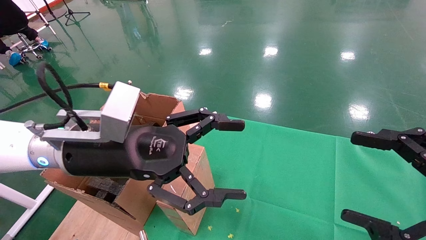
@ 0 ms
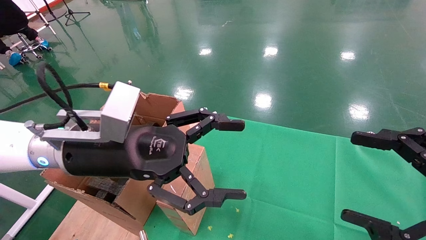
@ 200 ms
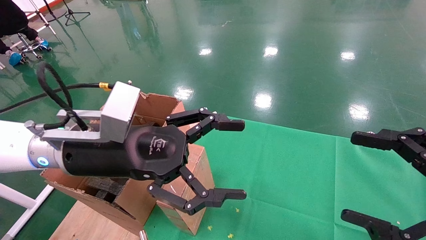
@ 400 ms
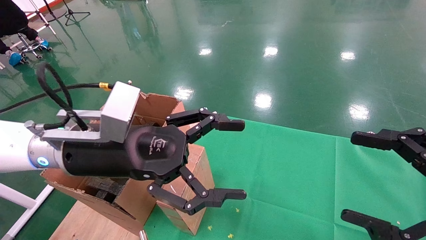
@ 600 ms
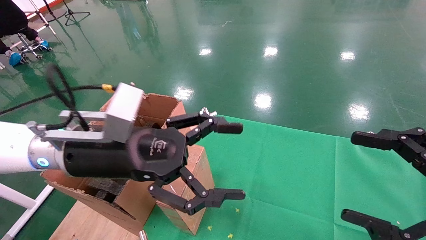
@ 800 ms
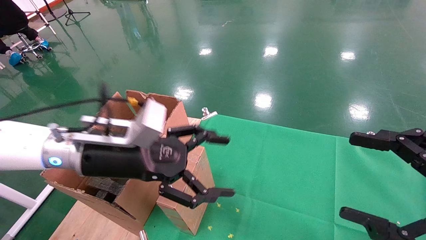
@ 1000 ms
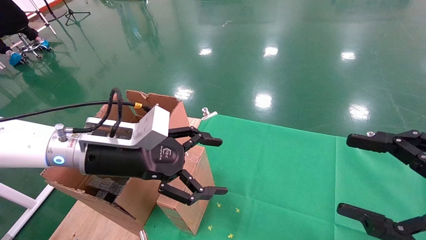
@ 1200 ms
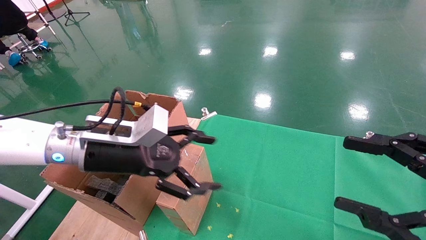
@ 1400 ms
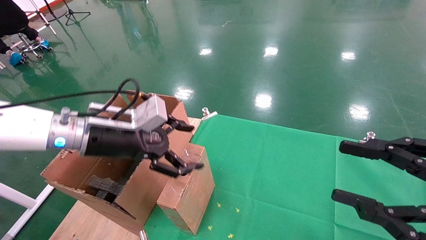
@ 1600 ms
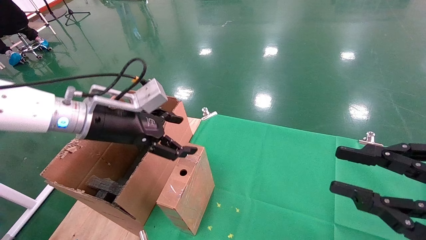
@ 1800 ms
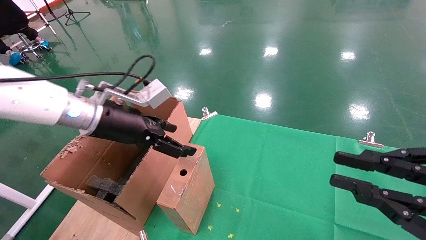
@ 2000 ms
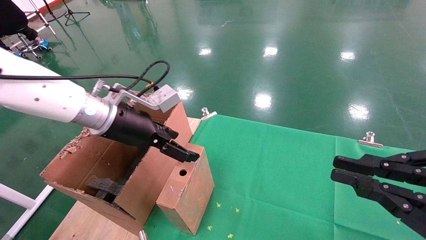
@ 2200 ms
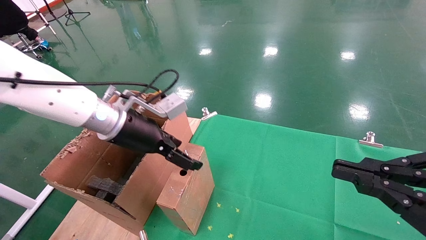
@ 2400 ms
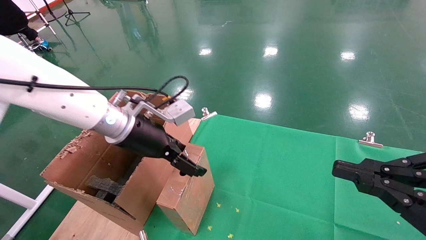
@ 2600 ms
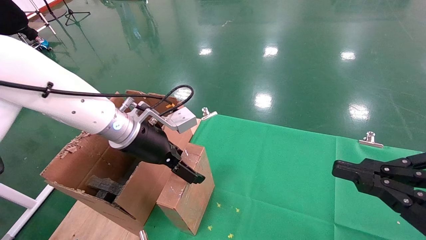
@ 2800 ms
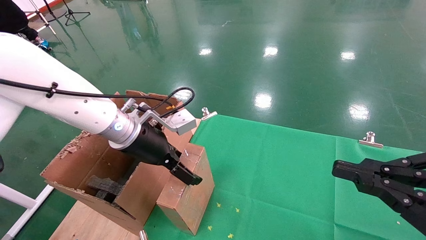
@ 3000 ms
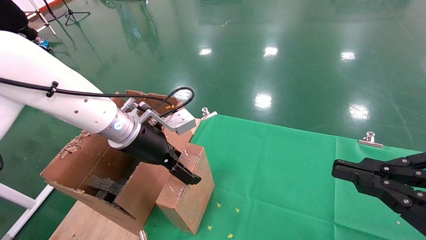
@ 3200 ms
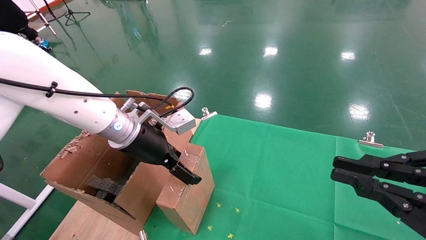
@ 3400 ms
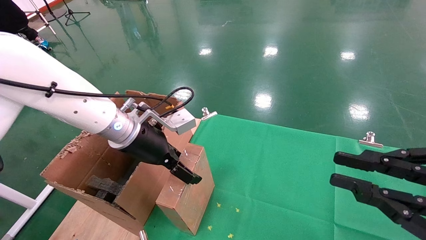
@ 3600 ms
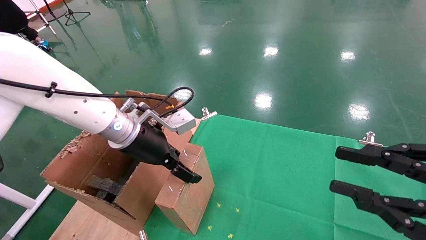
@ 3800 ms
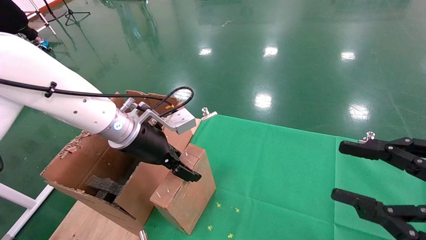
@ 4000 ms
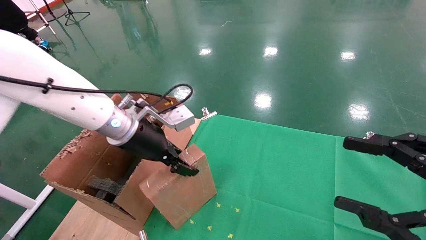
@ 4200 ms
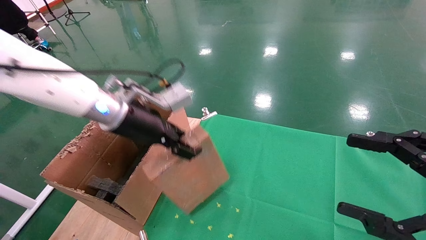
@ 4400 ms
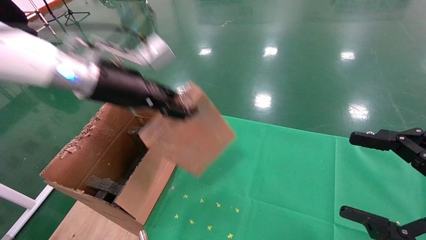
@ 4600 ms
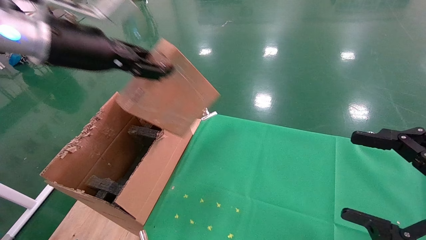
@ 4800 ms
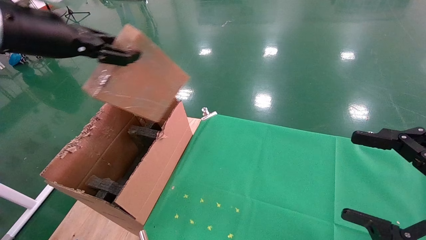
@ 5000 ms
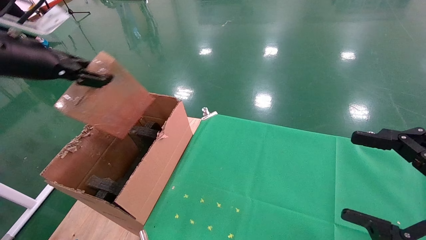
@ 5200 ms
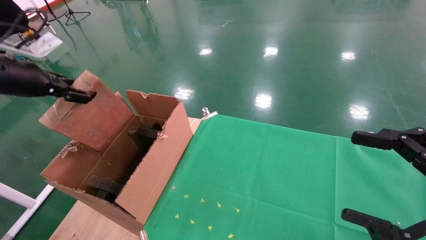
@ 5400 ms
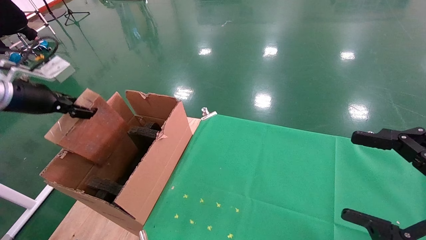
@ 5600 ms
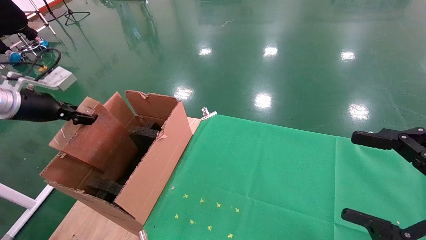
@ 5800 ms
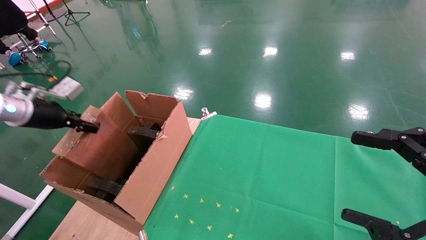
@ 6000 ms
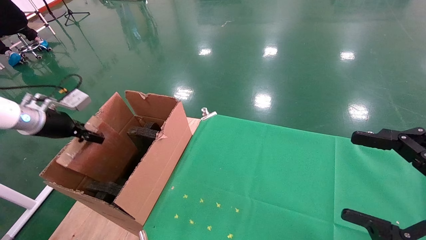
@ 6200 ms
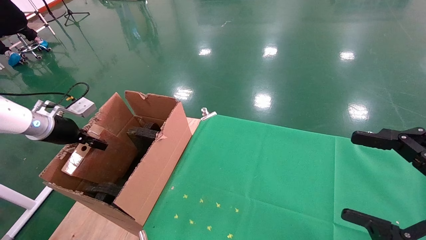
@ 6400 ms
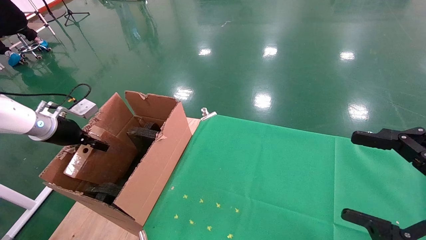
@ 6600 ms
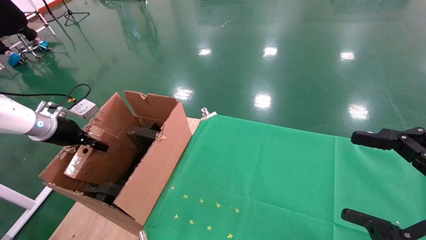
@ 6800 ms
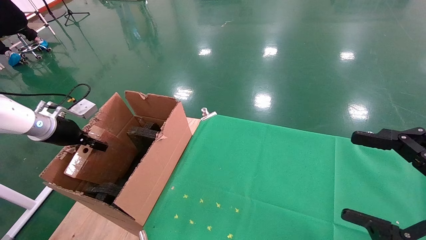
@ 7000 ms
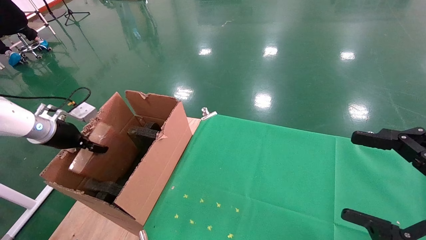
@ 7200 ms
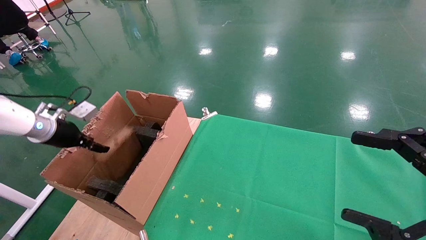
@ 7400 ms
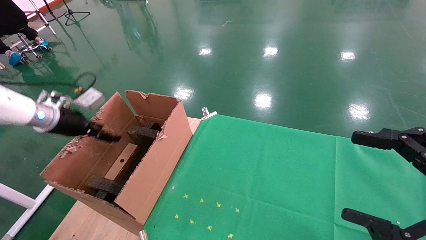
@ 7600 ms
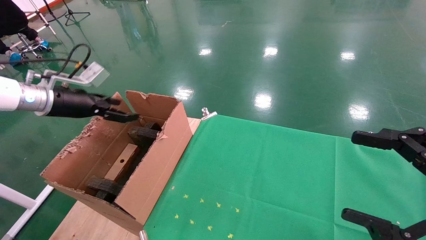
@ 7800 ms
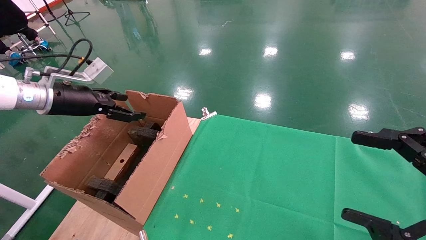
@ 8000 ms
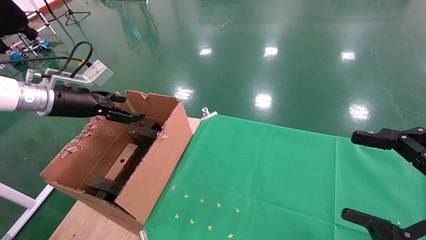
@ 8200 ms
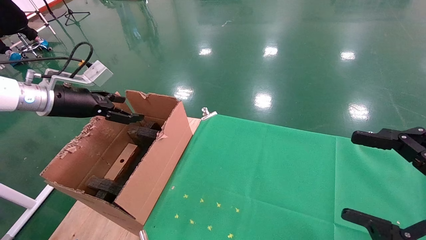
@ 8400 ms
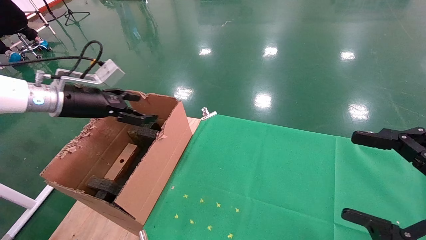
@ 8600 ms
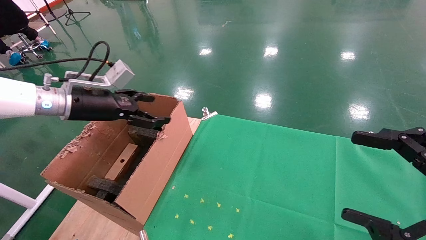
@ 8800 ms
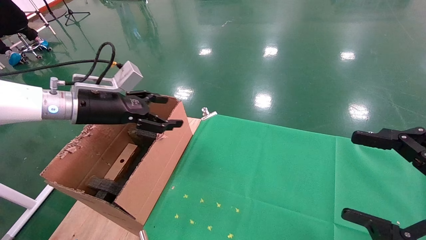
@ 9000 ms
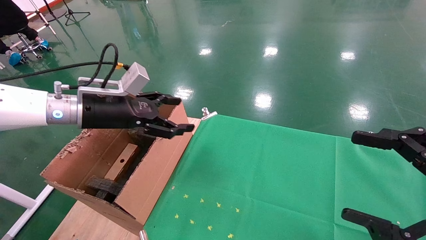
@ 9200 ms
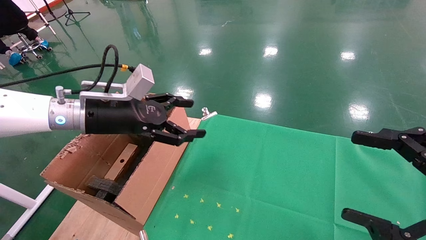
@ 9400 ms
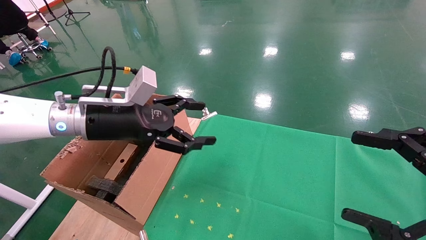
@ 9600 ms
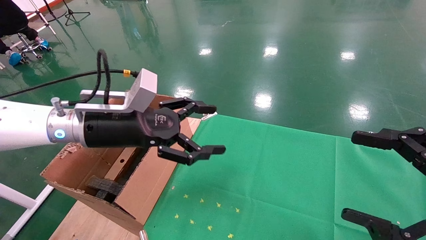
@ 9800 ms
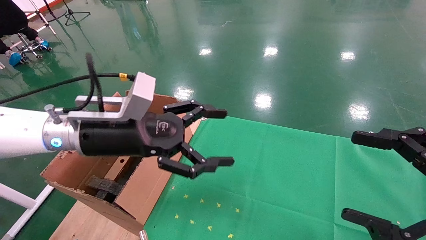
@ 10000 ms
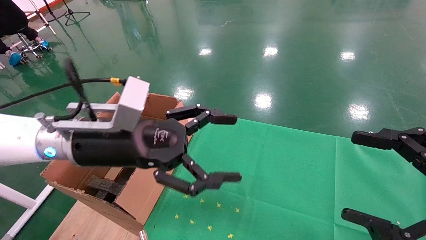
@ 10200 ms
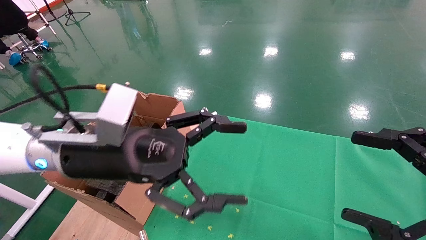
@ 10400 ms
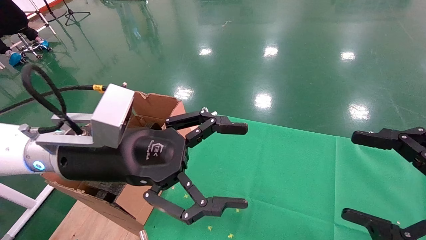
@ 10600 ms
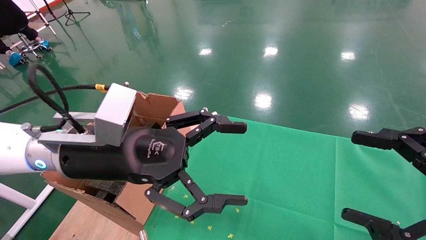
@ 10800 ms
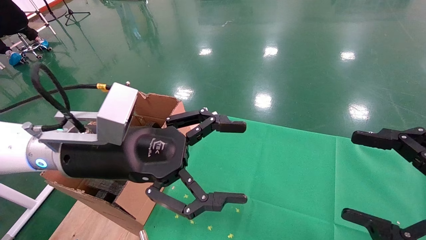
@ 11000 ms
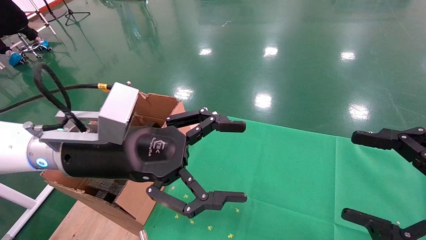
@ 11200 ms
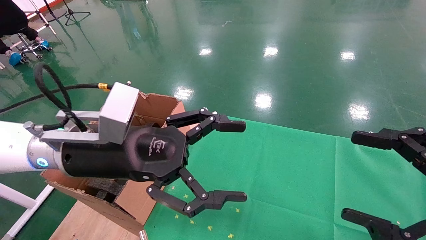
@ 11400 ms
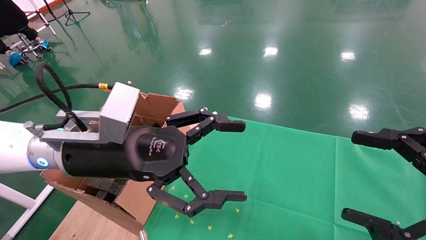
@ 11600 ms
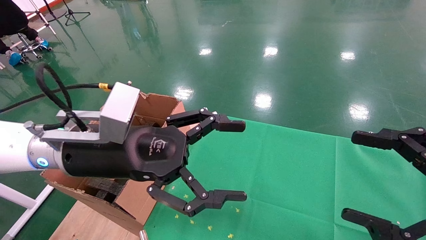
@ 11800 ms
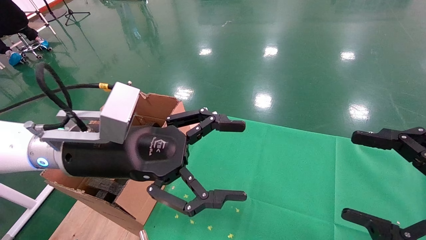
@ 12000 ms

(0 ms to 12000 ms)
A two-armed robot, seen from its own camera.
Task of the whole recording: using a robotic arm to pick up a cardboard box and palace it the carton.
Step, 1200 ms - 4200 ms: Pick up the mouse and the power cord paper box.
Step, 4400 ms - 7200 ms: Place the mouse and the power cord paper box into the container.
0 ms - 1600 ms: The left gripper heads forward and to the left, covering approximately 10 cm. The right gripper closes up.
1600 ms - 3000 ms: The left gripper moves approximately 5 cm, while the right gripper closes its fingers.
3000 ms - 4400 ms: The left gripper travels upward by some 10 cm, and closes its fingers; the right gripper opens.
4400 ms - 6000 ms: The left gripper heads to the left, covering some 25 cm.
6000 ms - 7600 ms: The left gripper opens up.
7600 ms - 9000 ms: The left gripper moves to the right, approximately 10 cm, and opens up.
9000 ms - 10400 ms: The left gripper goes about 15 cm to the right and backward.
10400 ms - 12000 ms: Both grippers stay put.

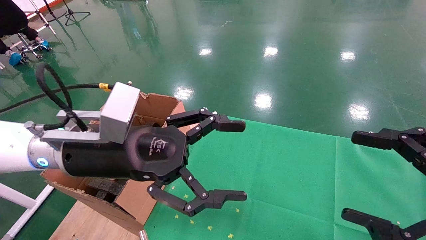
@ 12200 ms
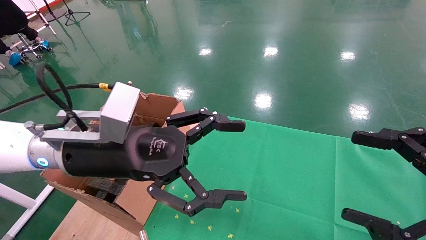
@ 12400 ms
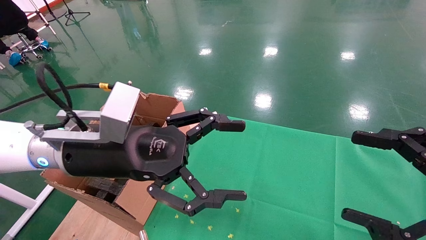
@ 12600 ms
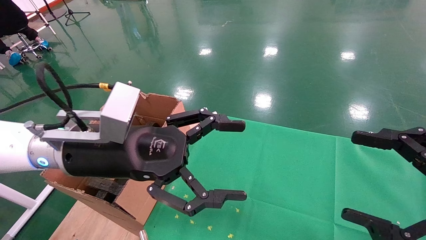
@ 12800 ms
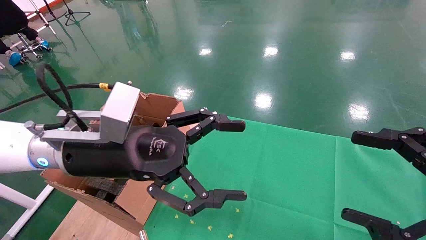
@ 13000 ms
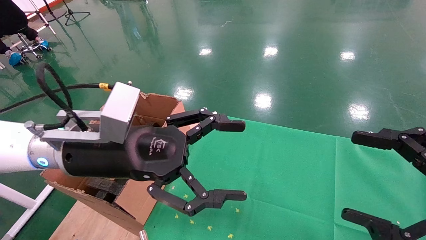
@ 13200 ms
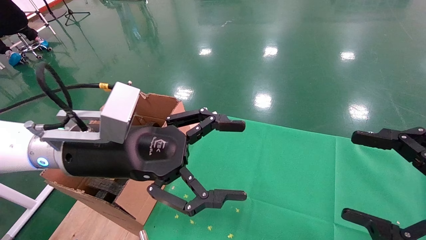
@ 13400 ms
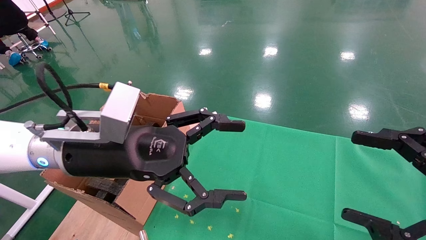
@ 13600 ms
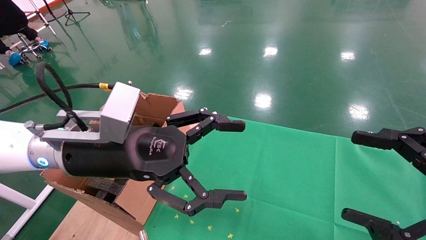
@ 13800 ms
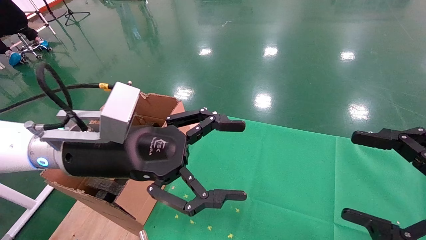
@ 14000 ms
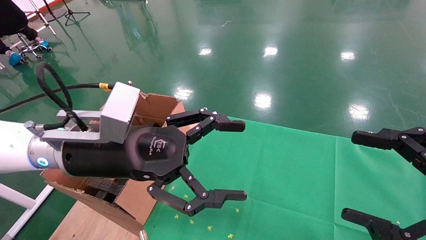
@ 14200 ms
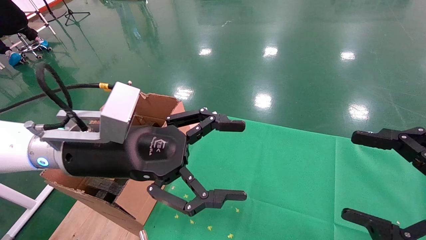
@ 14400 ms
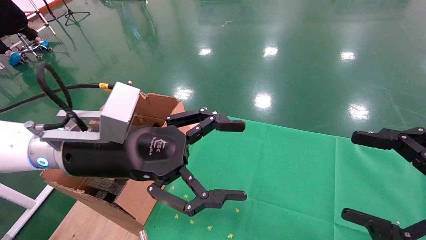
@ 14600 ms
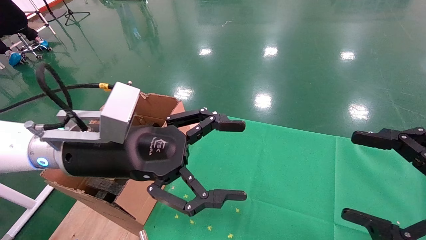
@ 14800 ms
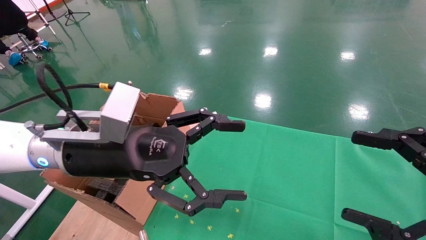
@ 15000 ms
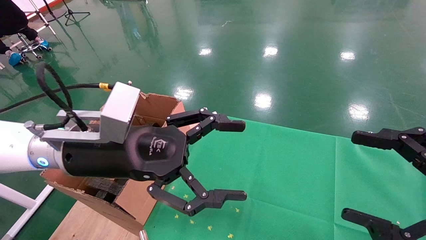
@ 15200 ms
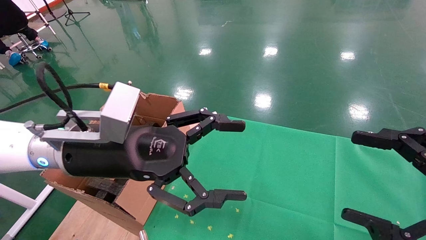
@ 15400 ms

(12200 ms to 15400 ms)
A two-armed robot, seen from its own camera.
Task of the whole recording: using a robotic arm to pick up a cardboard box and palace it the carton.
12200 ms - 15400 ms: Neither gripper changes place.
